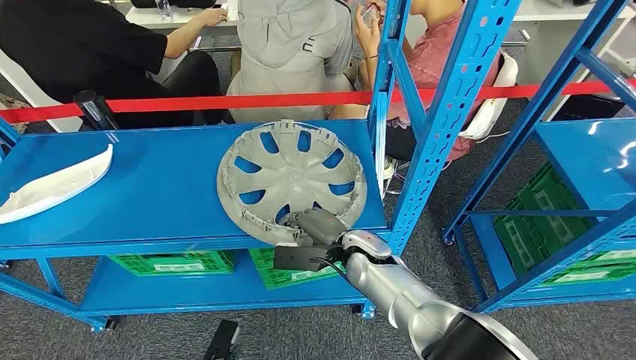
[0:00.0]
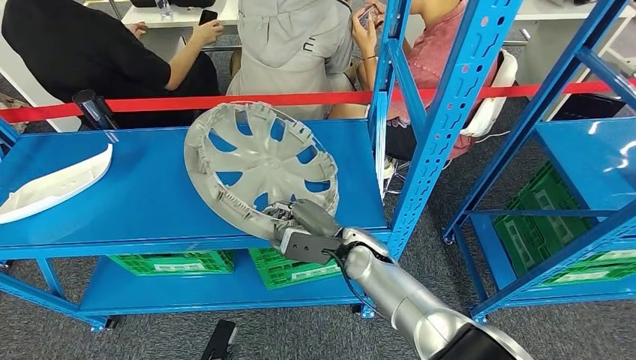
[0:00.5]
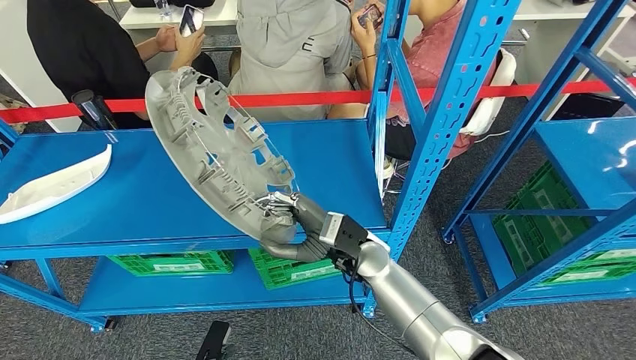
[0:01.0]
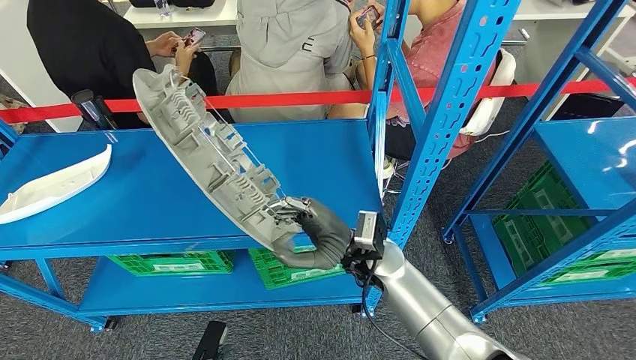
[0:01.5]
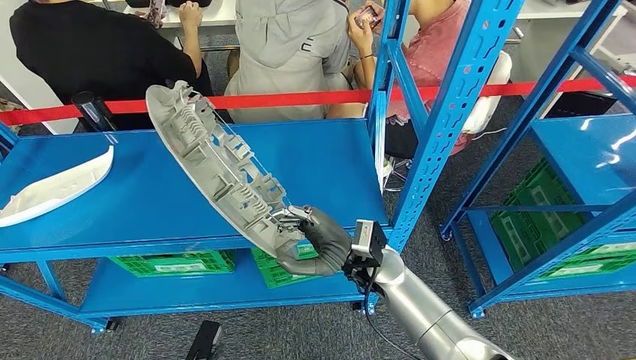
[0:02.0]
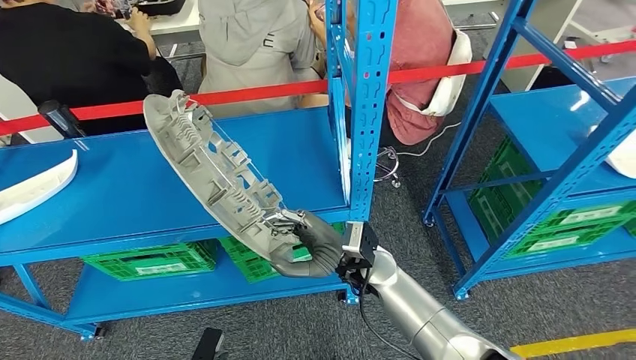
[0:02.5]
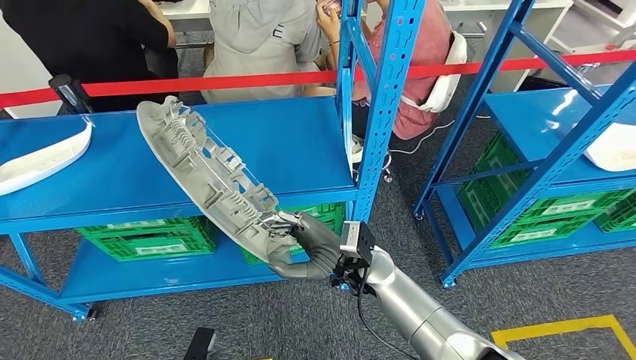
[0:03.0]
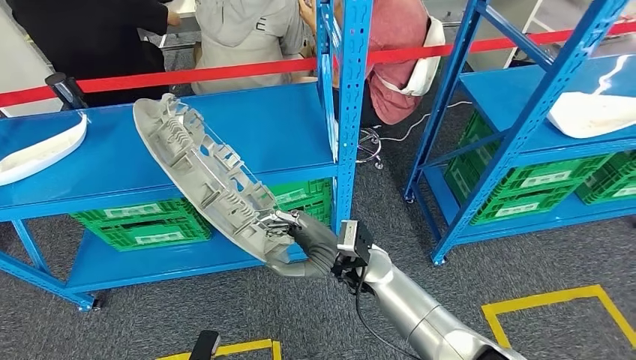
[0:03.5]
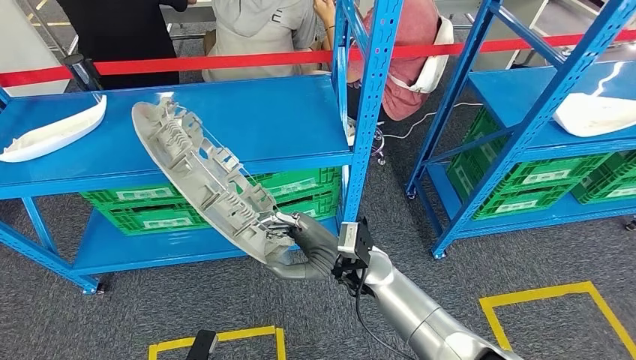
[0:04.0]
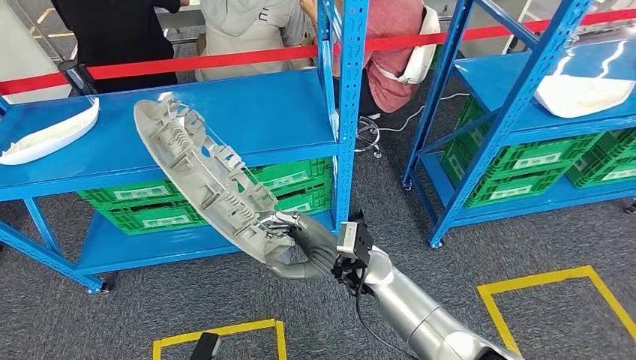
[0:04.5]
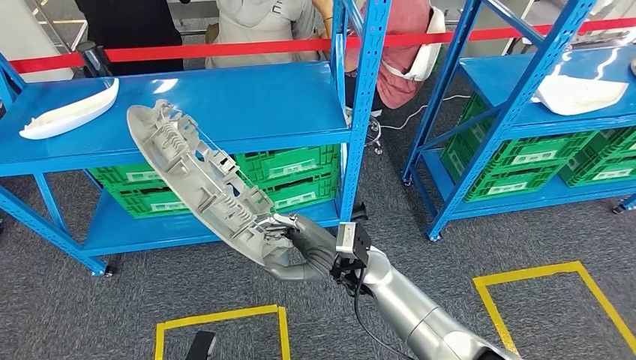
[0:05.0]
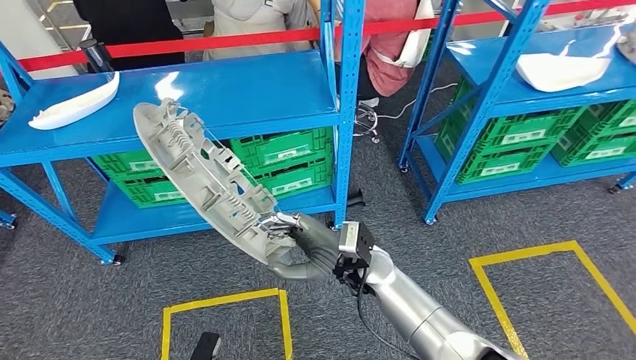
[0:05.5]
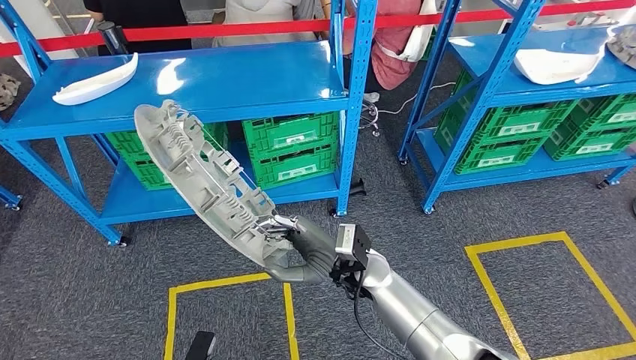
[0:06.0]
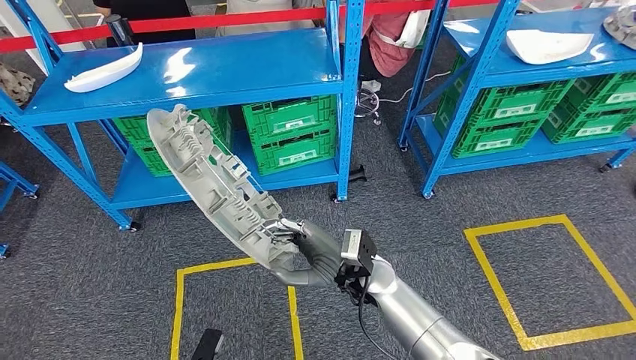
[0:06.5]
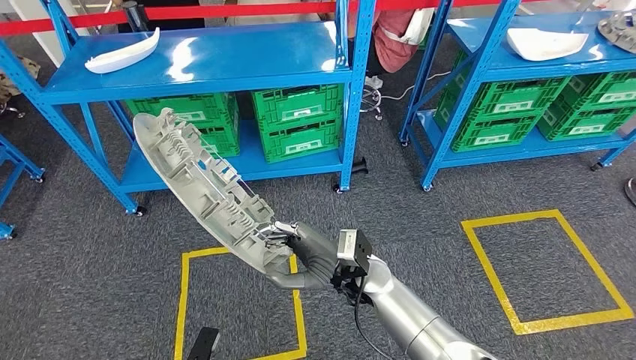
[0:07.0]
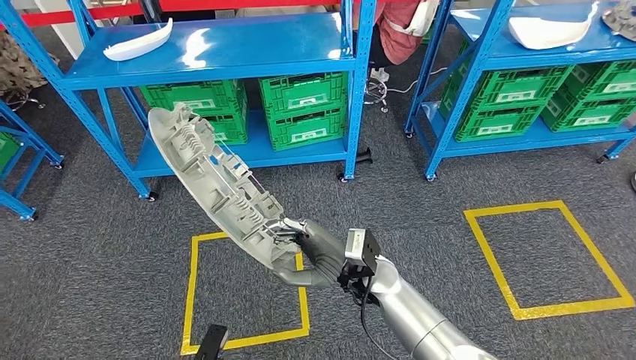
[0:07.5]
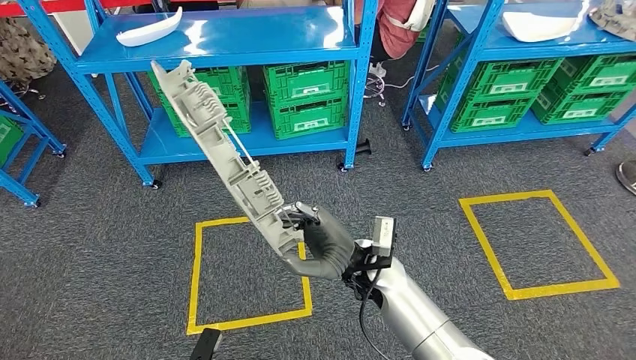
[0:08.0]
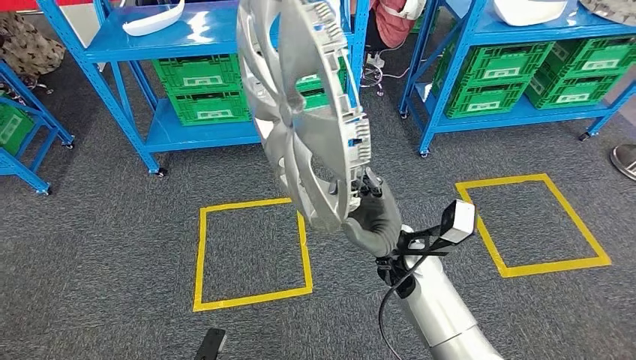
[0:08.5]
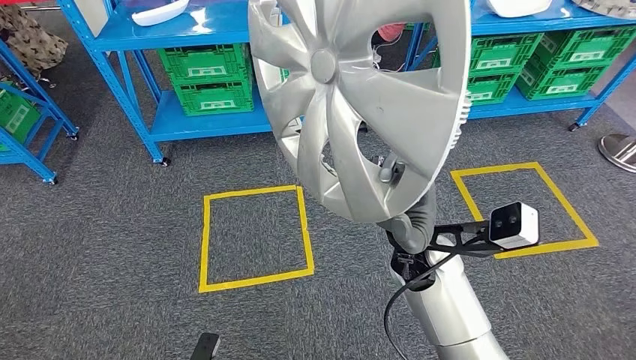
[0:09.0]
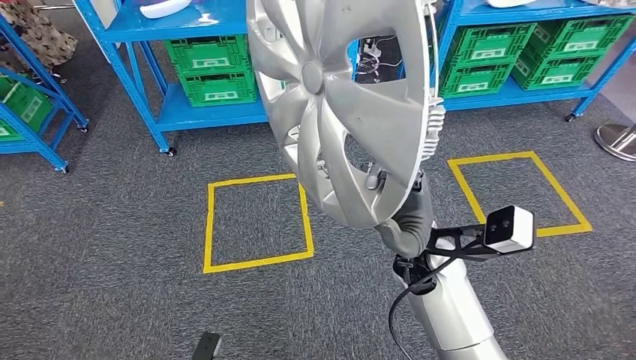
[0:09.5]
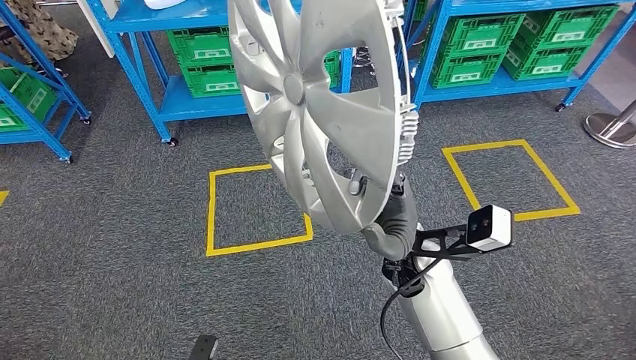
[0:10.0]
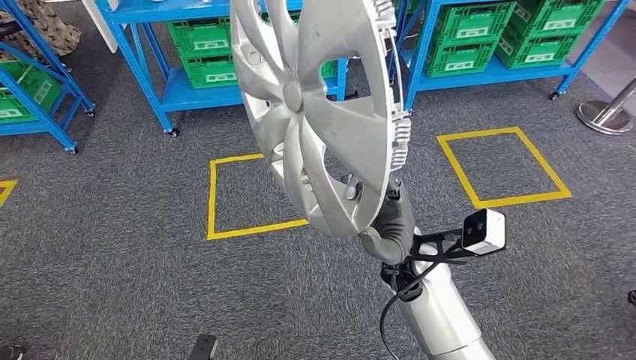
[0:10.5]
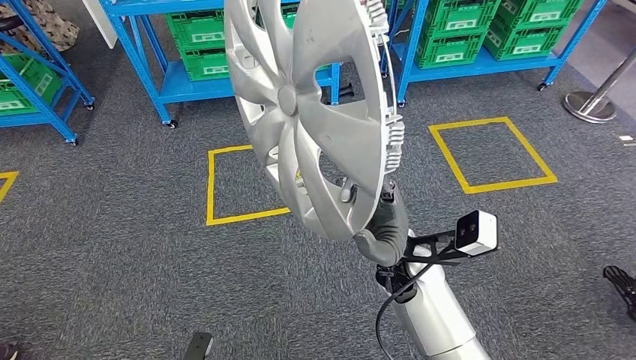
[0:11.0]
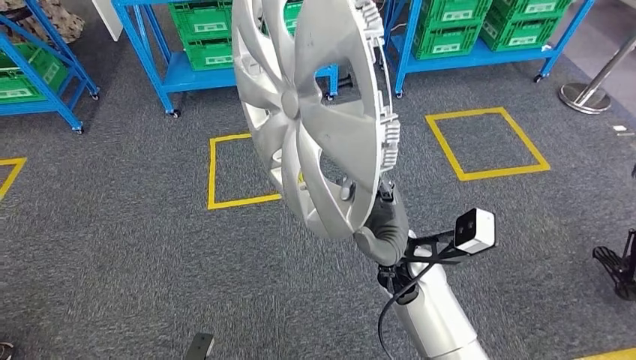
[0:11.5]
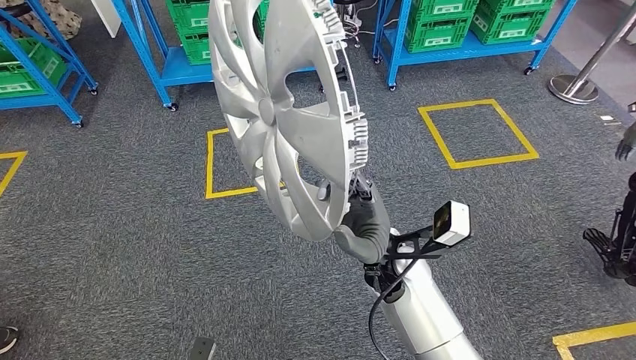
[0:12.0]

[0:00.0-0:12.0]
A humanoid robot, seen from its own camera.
Step, 0:00.0 to 0:02.5: Pick up the small component from the shelf.

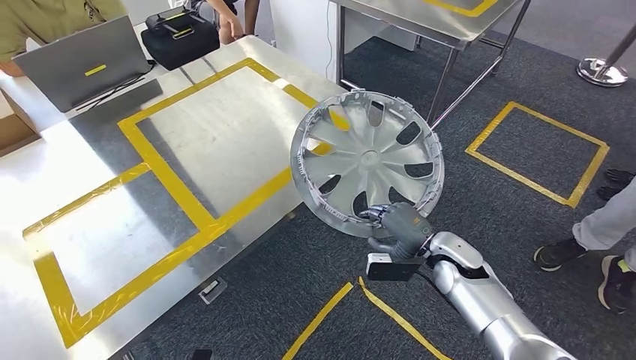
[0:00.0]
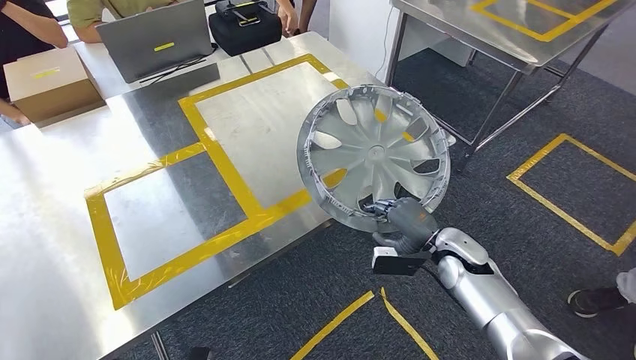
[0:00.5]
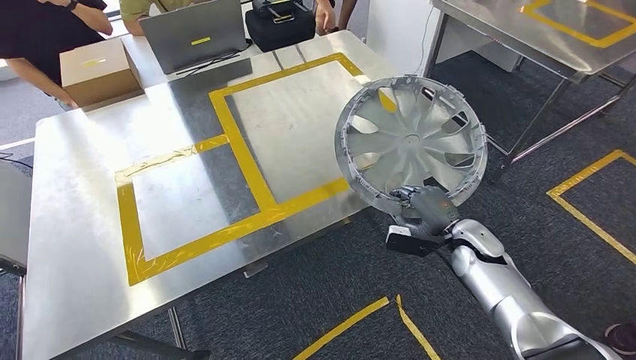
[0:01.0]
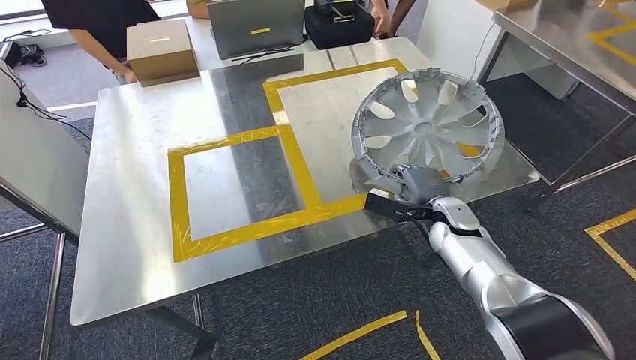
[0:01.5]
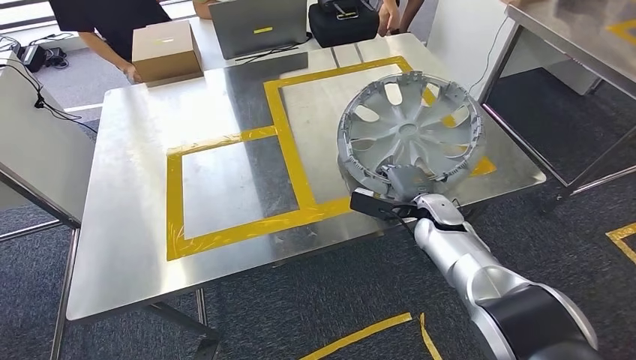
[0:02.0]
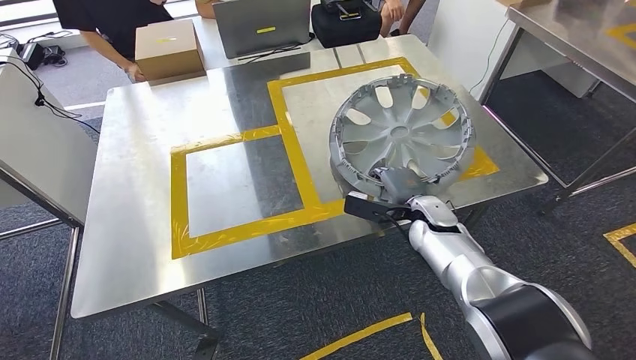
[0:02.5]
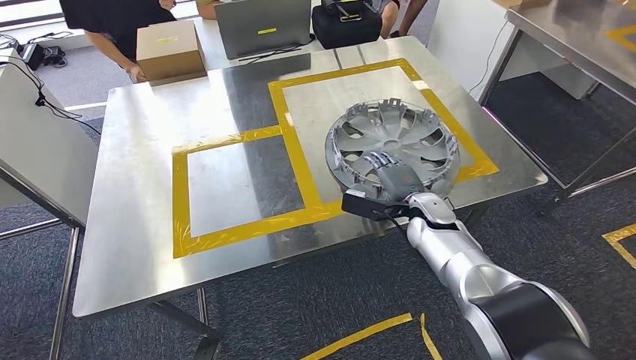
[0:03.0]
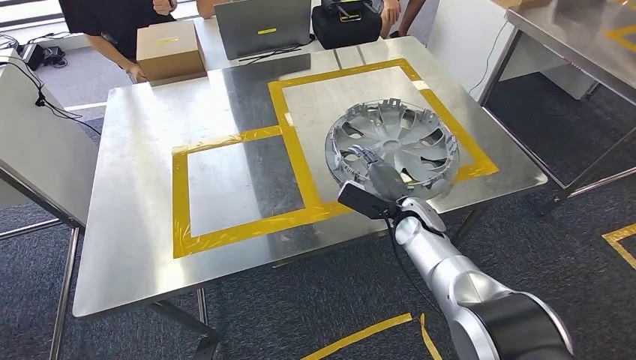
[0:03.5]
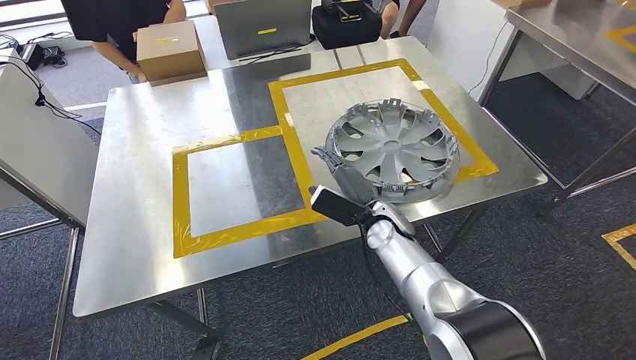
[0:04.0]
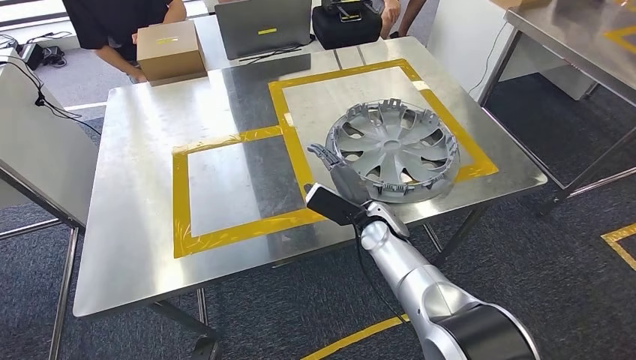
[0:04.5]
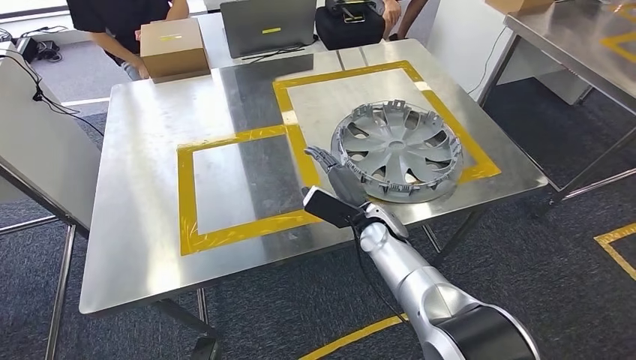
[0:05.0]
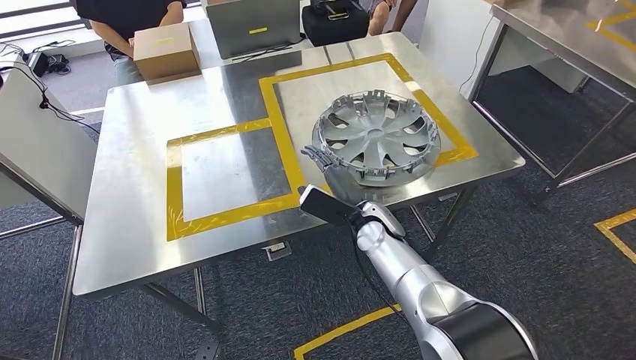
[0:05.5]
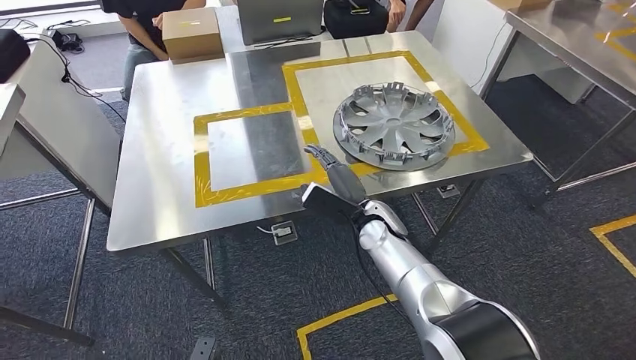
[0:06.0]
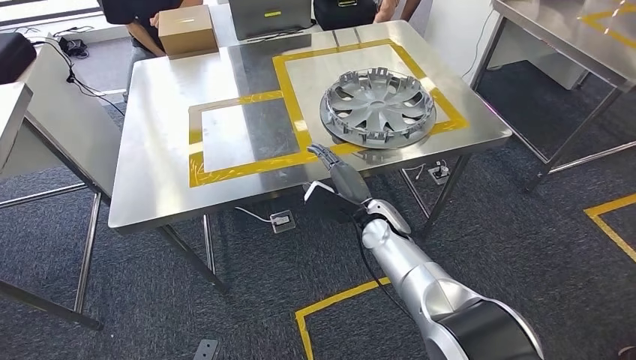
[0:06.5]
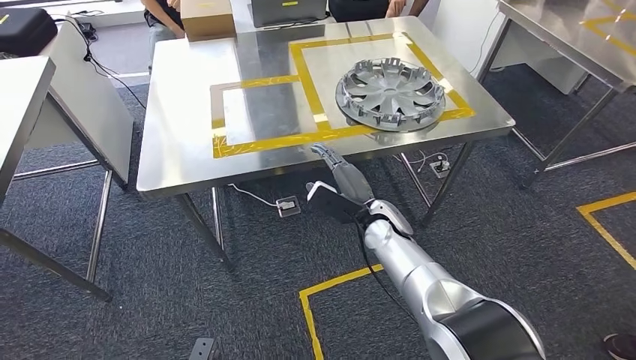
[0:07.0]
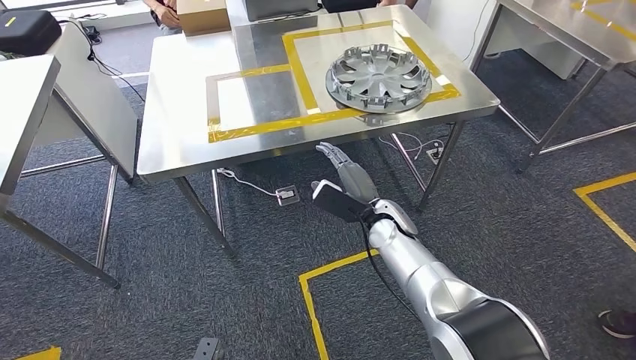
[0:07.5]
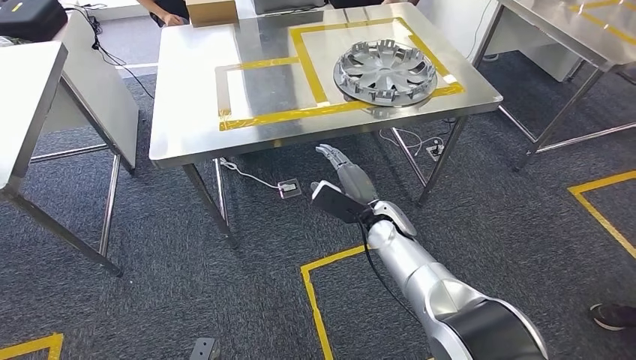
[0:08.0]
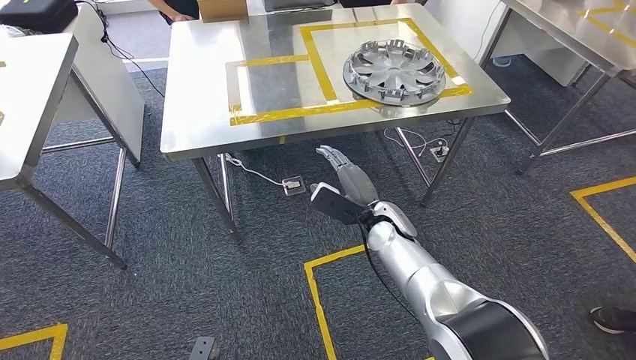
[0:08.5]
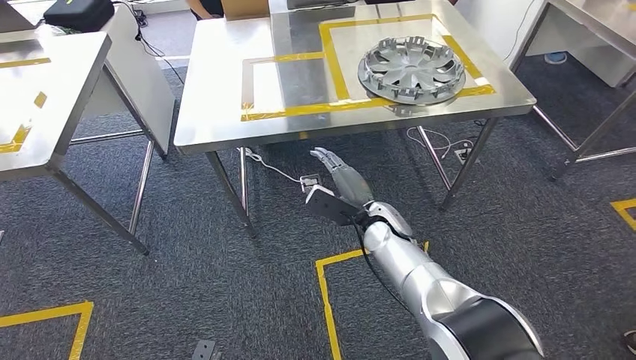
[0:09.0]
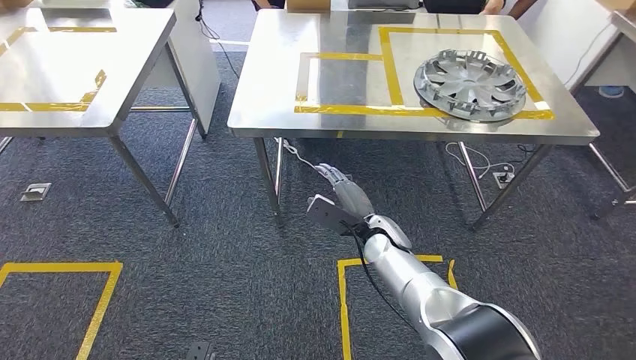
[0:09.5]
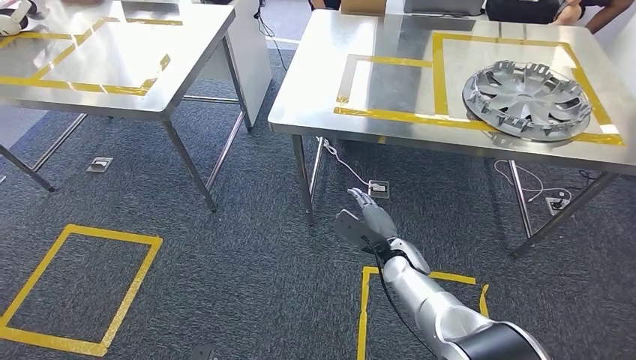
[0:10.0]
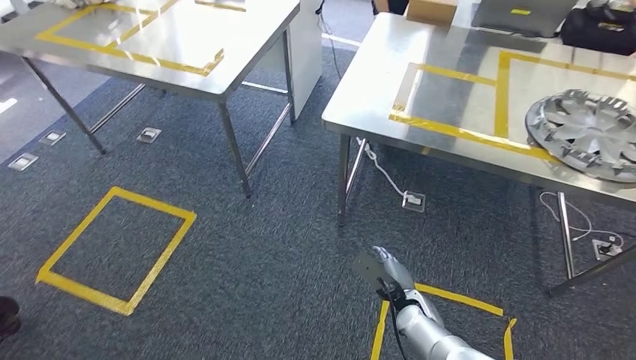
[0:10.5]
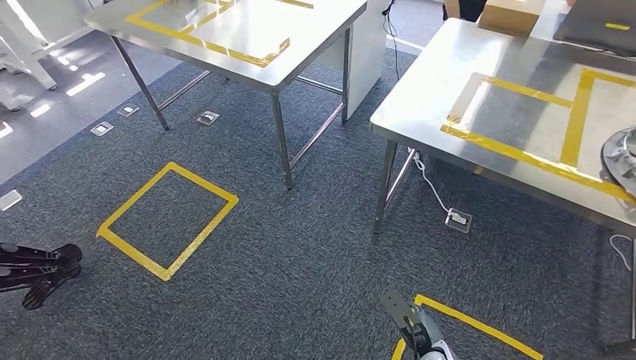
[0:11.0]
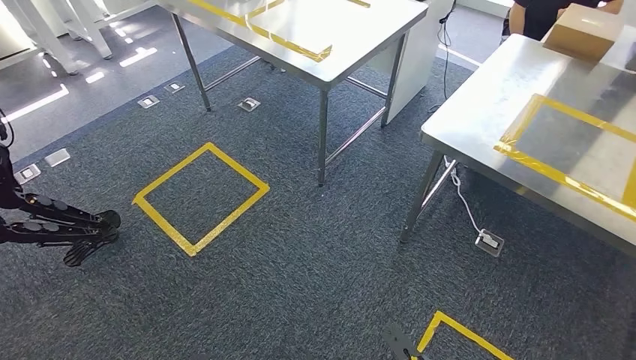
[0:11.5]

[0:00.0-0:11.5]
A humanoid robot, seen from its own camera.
Step, 0:02.5 to 0:05.0: Insert the small component into the corresponding slot on the workbench.
